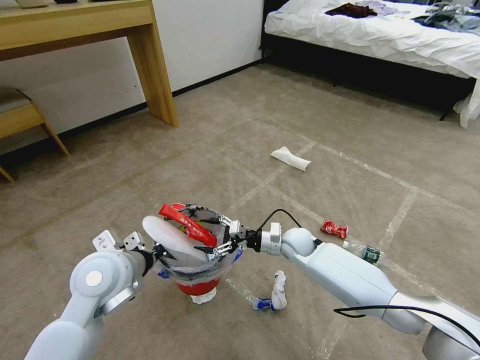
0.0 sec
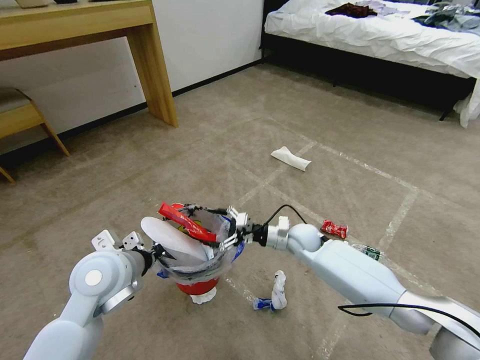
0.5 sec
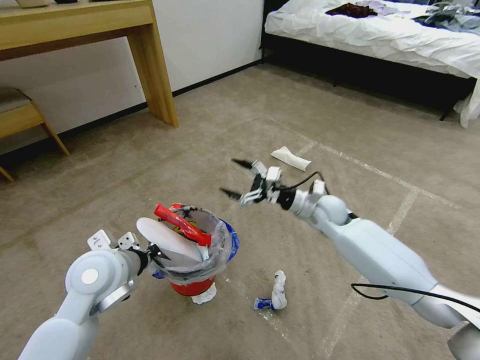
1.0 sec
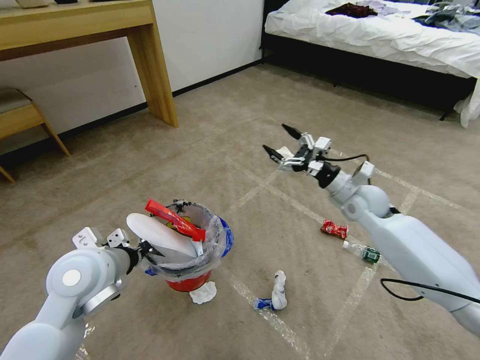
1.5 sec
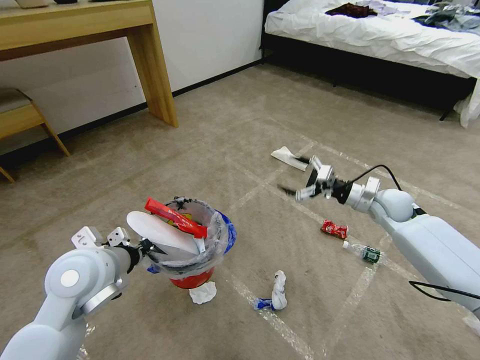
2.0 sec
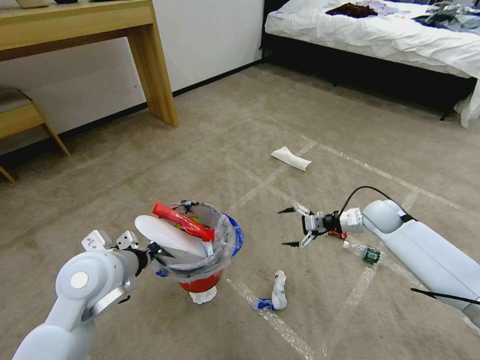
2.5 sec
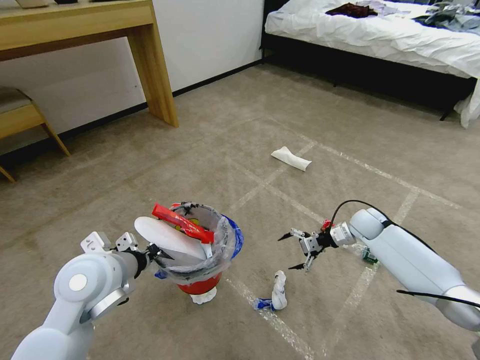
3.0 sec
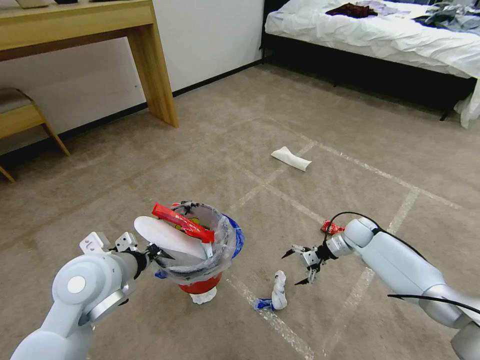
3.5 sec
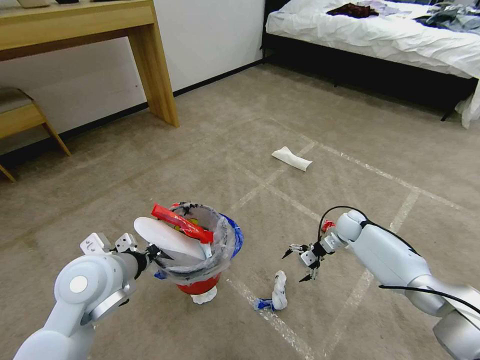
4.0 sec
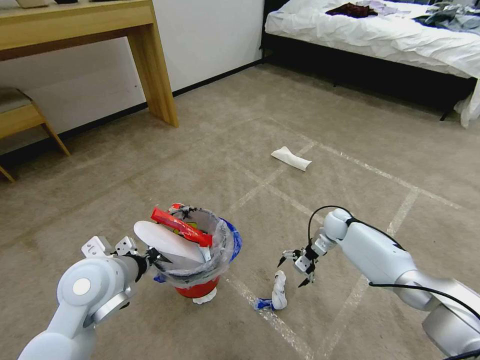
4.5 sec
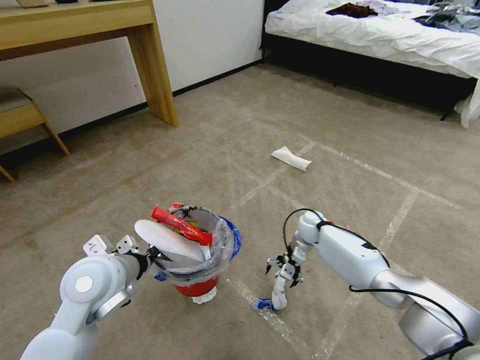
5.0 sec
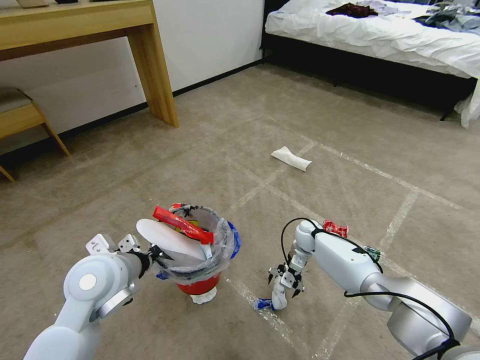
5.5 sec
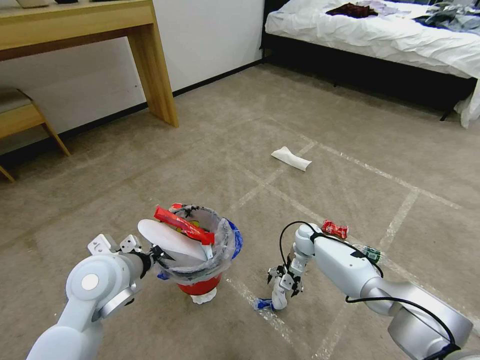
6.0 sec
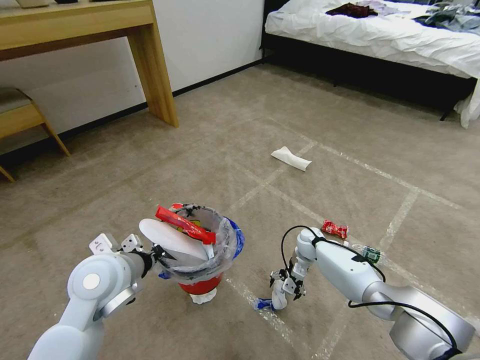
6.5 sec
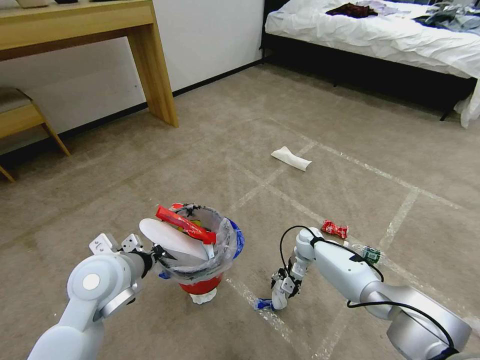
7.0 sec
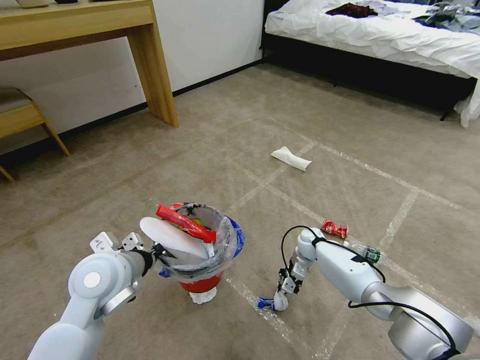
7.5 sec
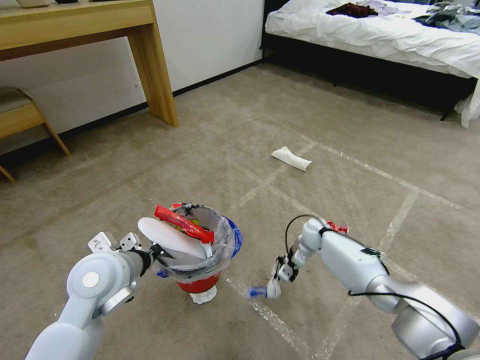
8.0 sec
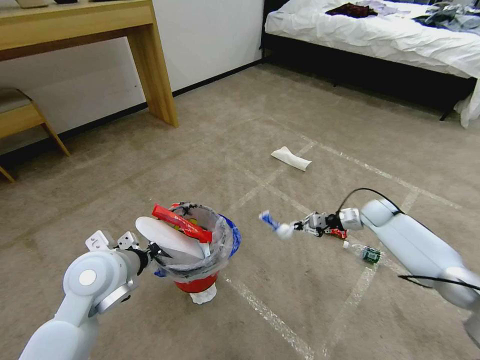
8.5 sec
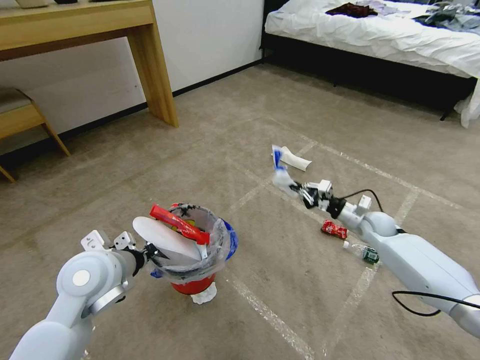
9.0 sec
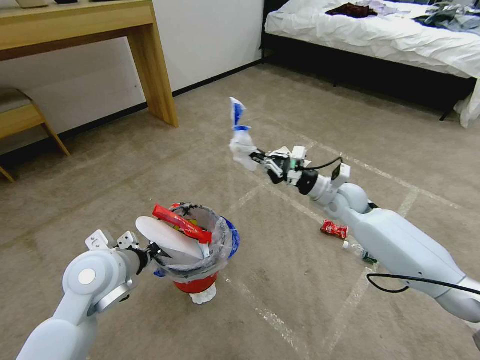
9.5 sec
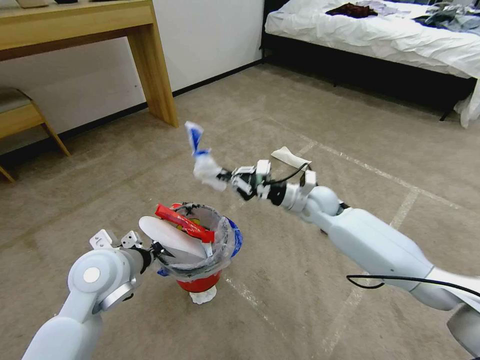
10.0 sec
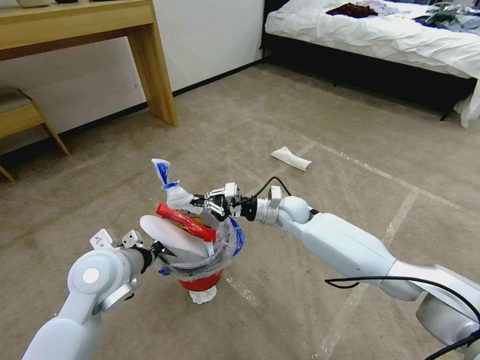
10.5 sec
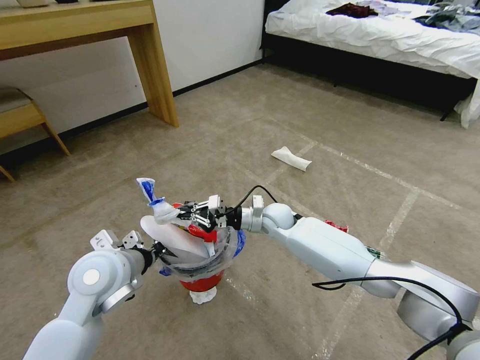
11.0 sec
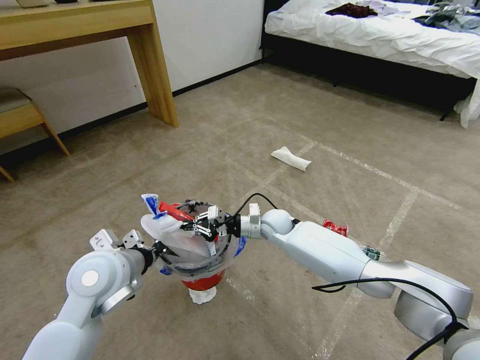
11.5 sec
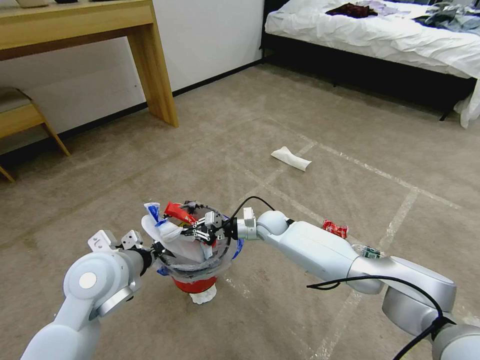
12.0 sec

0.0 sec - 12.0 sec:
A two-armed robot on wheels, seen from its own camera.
Task of the whole recording: Pick up the trash bin and place the garbage on the floor into it.
0.0 sec - 2.0 sec: The right gripper travels to the right and upward by about 25 cm.
2.0 sec - 4.0 sec: The right gripper moves downward, some 15 cm.
4.0 sec - 6.0 sec: The right gripper moves to the left and downward, some 15 cm.
6.0 sec - 8.0 sec: The right gripper closes.
8.0 sec - 10.0 sec: The right gripper travels upward by some 20 cm, and goes to the right and returns, roughly 15 cm each way.
10.0 sec - 12.0 sec: The right gripper goes approximately 15 cm downward and to the left.

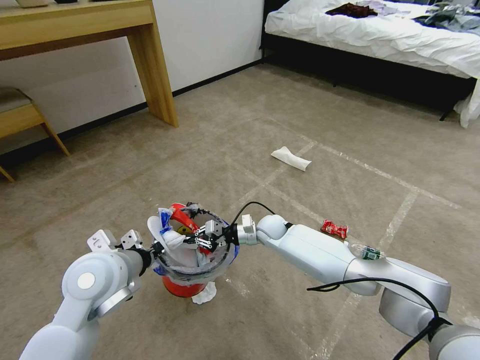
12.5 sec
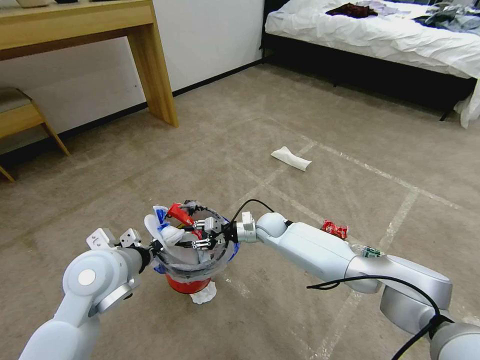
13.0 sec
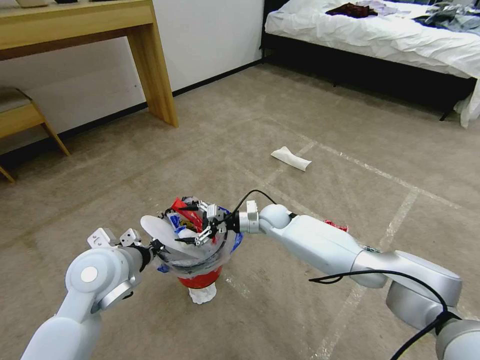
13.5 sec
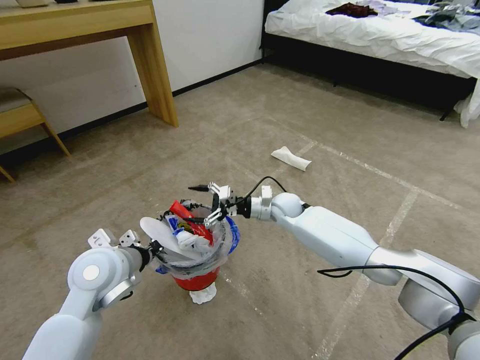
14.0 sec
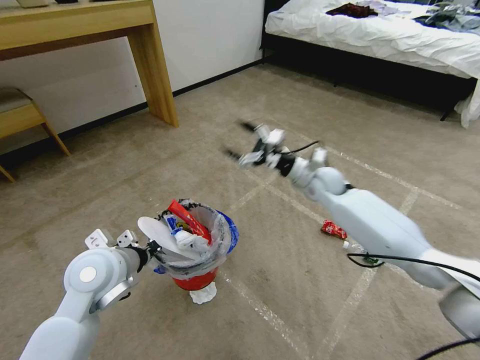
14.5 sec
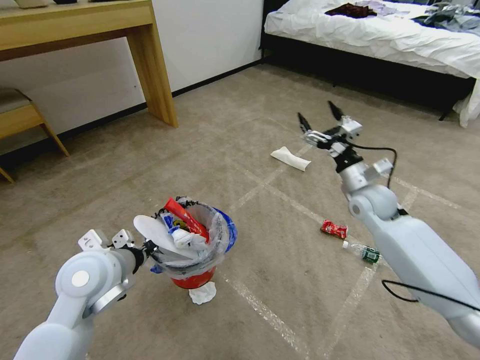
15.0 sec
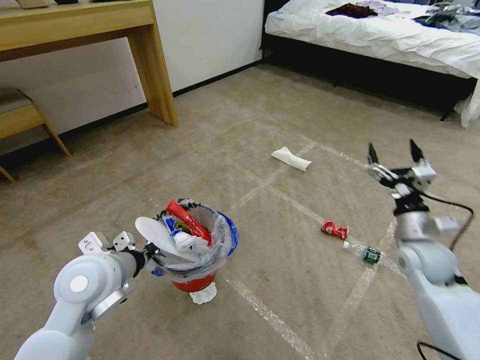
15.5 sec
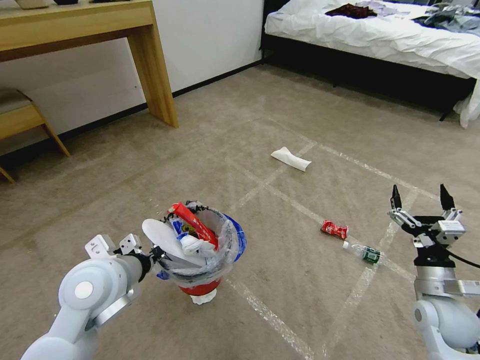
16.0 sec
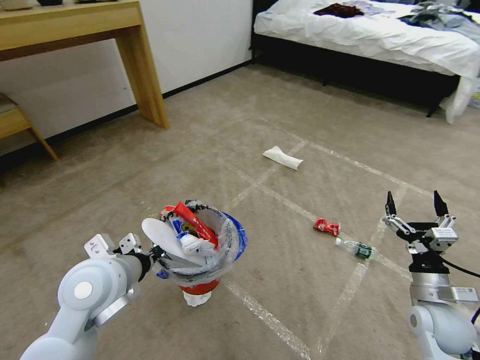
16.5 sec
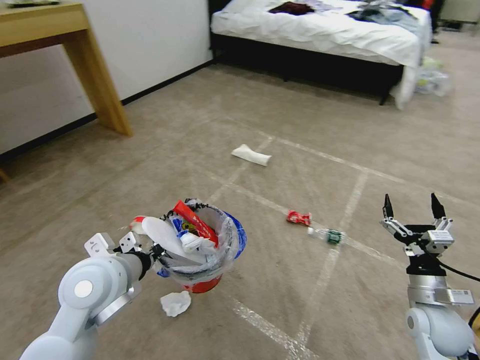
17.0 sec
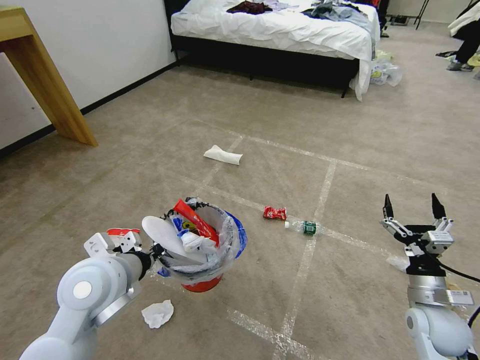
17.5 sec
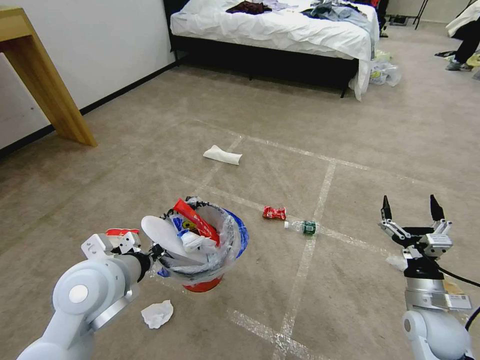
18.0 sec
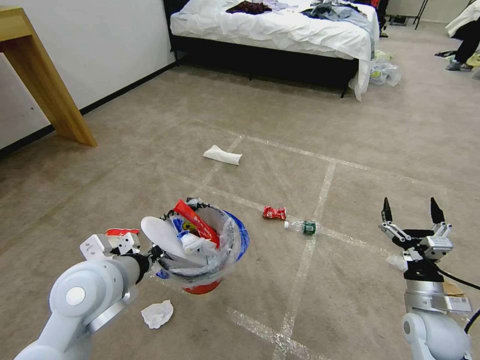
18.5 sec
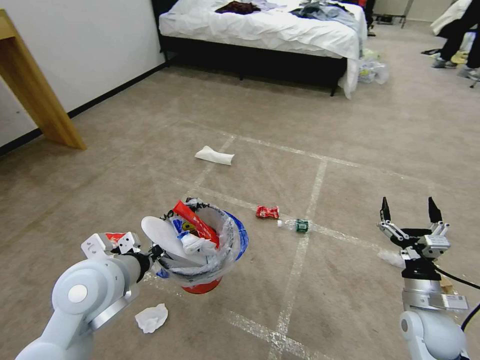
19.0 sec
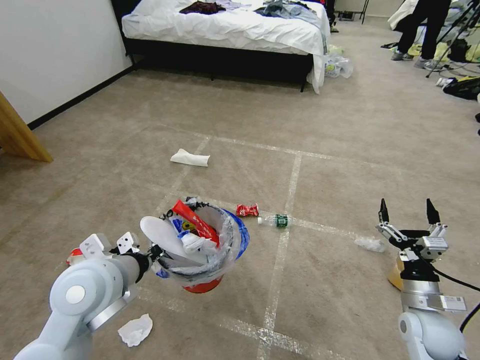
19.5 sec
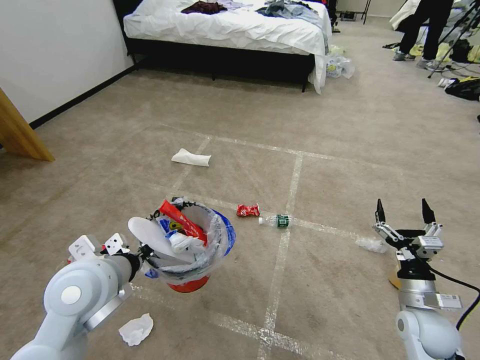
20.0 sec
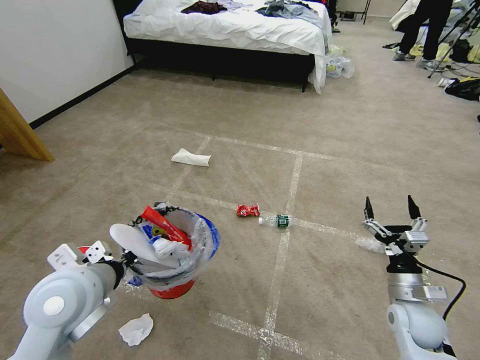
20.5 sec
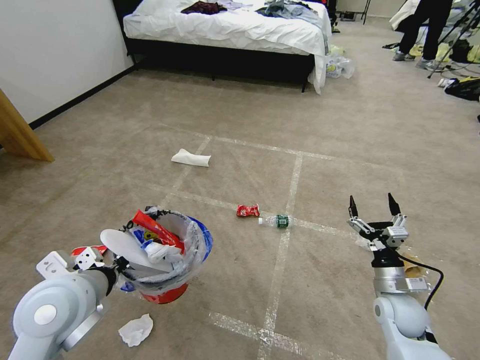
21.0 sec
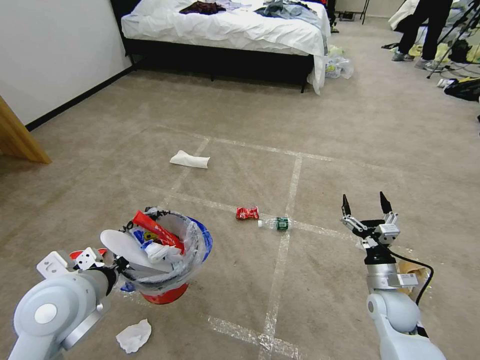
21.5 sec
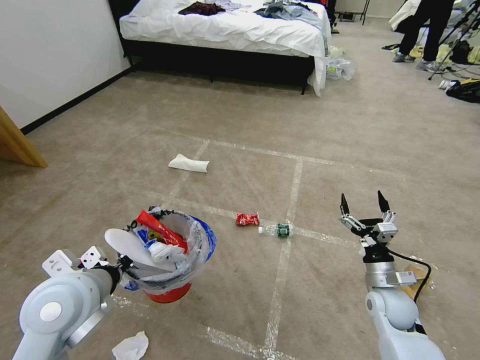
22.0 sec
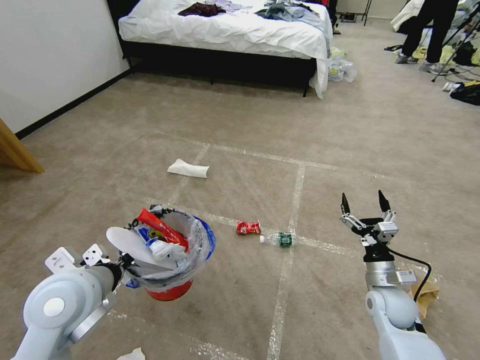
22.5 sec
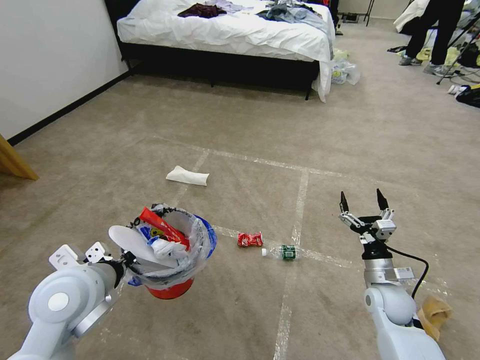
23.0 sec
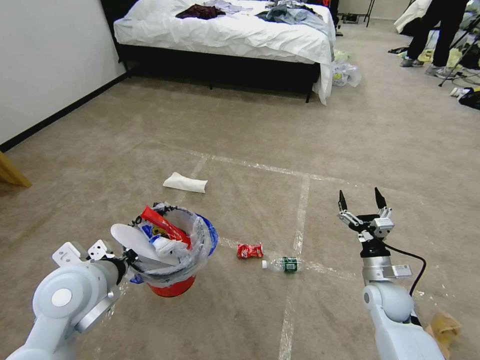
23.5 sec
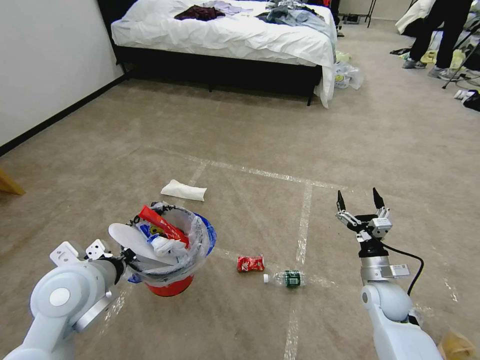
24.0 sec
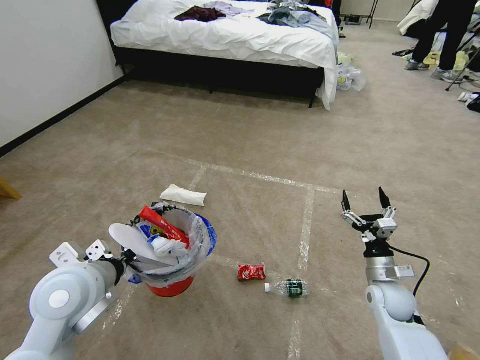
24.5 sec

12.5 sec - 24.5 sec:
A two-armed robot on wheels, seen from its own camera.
Task of the whole recording: Pick up the trash bin and place the garbage on the floor into it.
12.5 sec - 14.5 sec: The right gripper is displaced upward and to the right by about 20 cm, and opens up.
14.5 sec - 16.5 sec: The right gripper moves backward and to the right, about 35 cm.
20.5 sec - 22.5 sec: The right gripper changes place by some 5 cm.

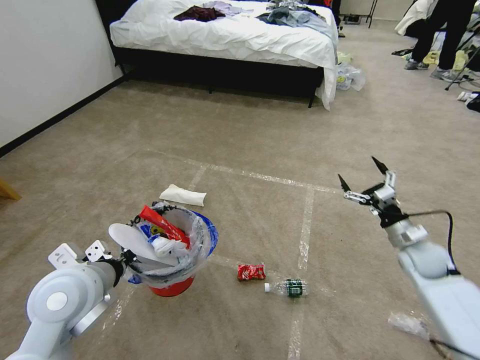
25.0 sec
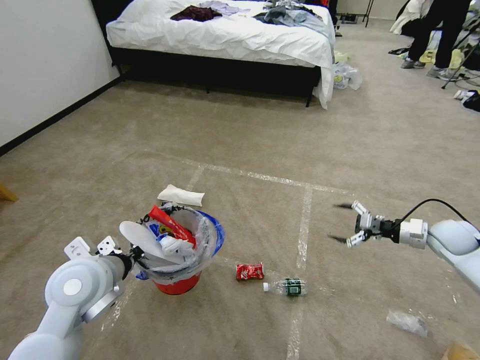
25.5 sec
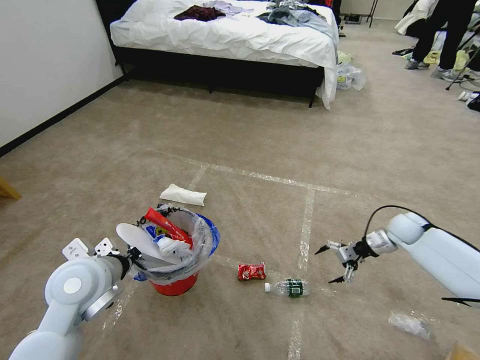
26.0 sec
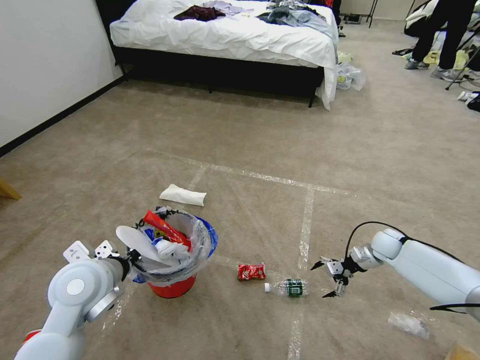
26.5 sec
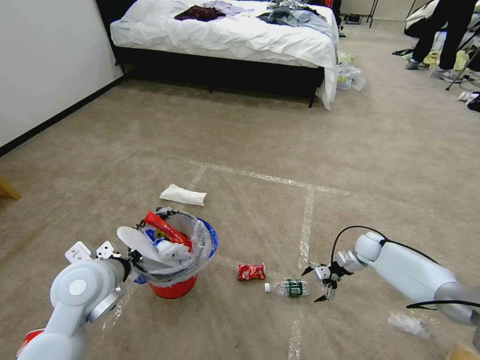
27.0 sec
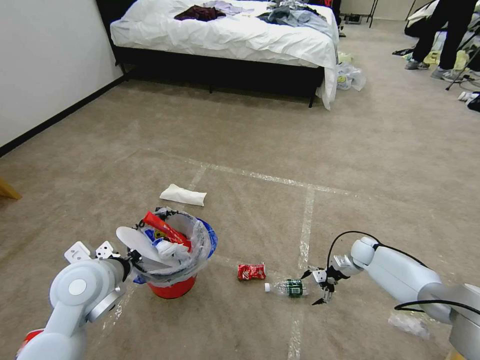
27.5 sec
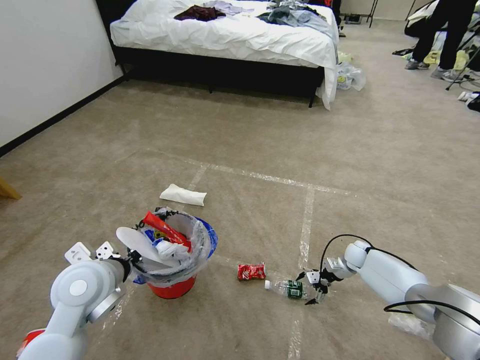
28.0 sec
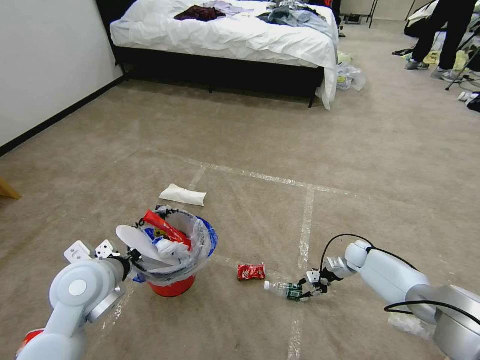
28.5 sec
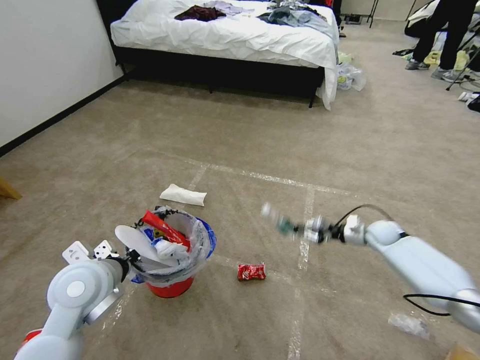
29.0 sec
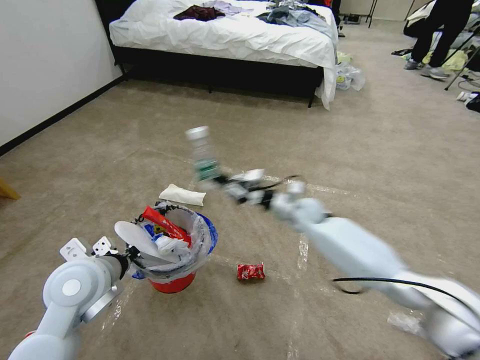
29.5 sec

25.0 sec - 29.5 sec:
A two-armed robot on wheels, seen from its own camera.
Task of the whole recording: Pick up the trash bin and place the garbage on the floor into it.
25.0 sec - 27.0 sec: The right gripper is displaced downward and forward by some 15 cm.
27.0 sec - 29.5 sec: The right gripper goes roughly 30 cm to the left and upward, and closes up.
